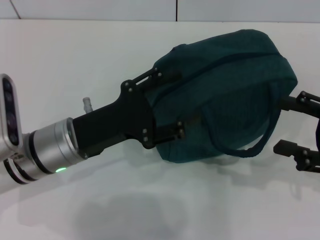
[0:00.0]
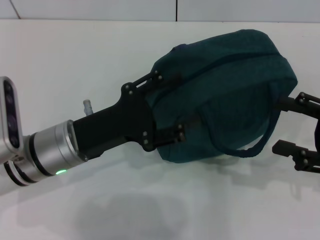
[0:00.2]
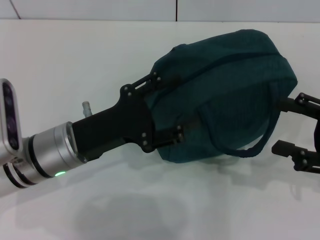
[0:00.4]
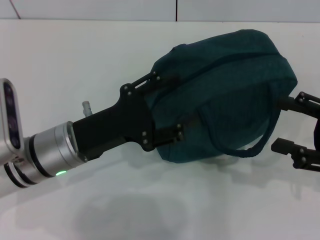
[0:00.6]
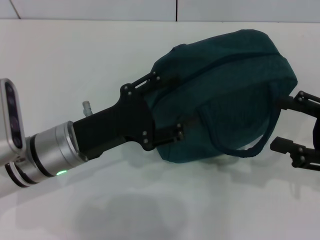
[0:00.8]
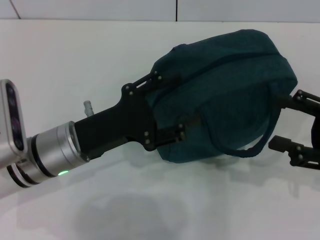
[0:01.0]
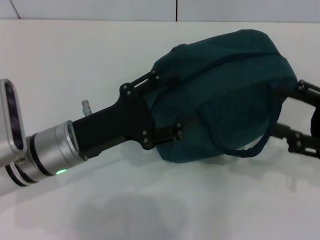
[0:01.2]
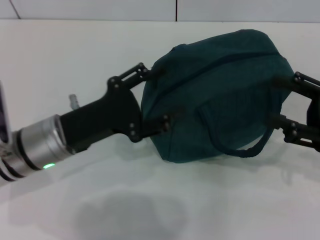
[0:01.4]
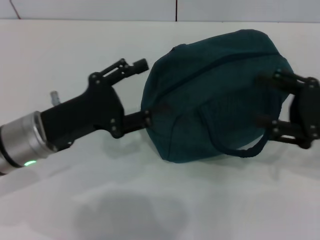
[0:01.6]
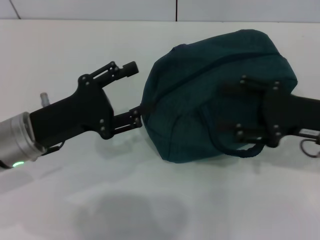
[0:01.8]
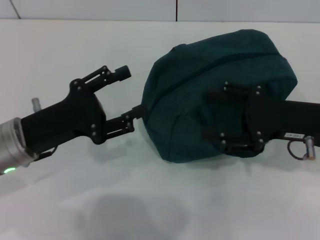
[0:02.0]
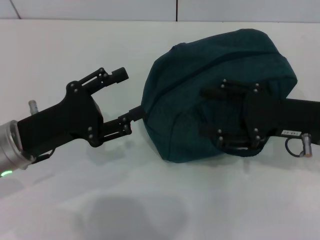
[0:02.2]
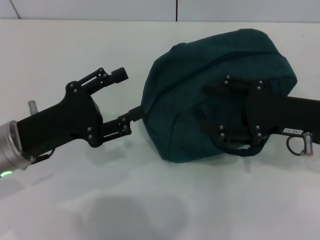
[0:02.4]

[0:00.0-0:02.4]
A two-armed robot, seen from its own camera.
0:00.0 to 0:01.2: The two grippers keep their place.
0:01.2 to 0:02.4: The grippers both shift to the left by about 5 cm.

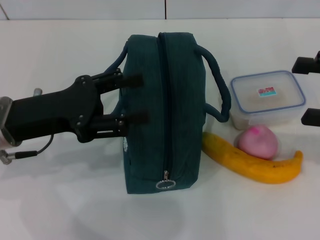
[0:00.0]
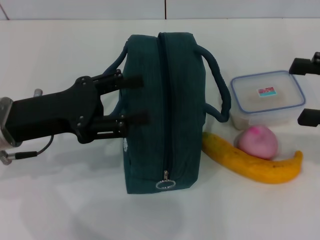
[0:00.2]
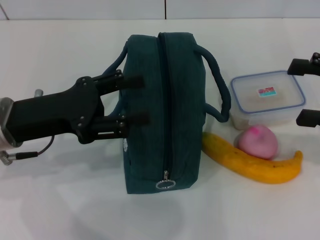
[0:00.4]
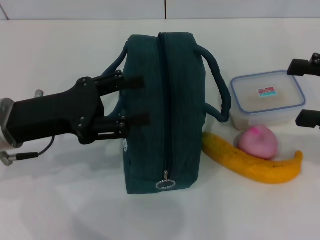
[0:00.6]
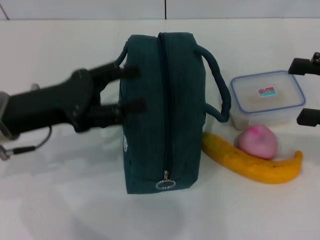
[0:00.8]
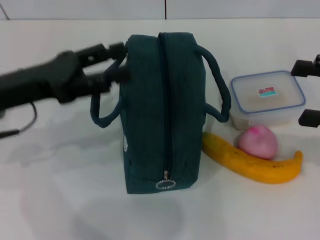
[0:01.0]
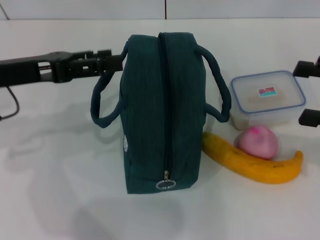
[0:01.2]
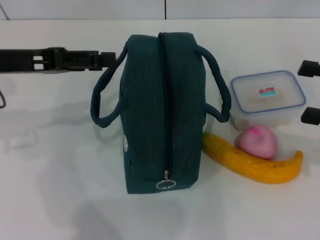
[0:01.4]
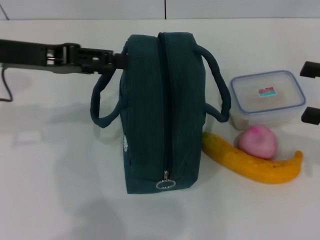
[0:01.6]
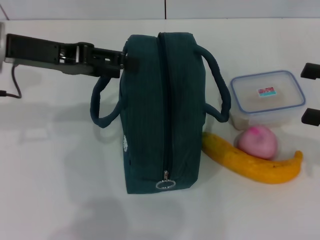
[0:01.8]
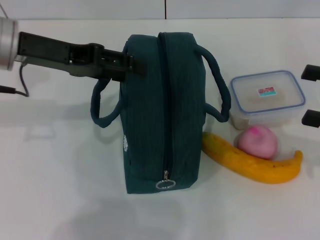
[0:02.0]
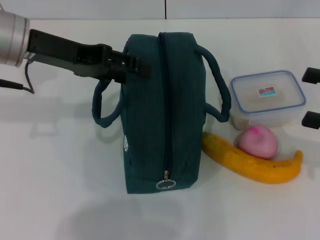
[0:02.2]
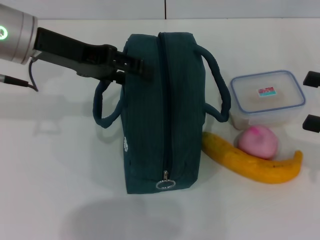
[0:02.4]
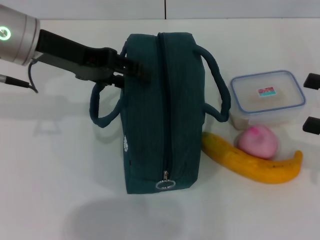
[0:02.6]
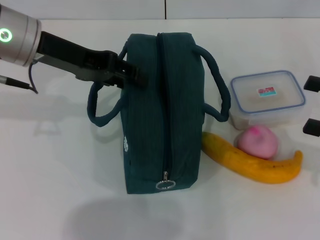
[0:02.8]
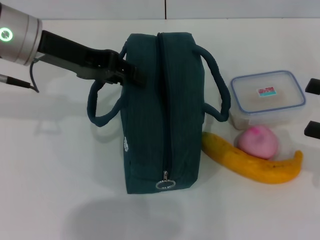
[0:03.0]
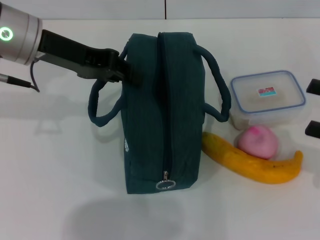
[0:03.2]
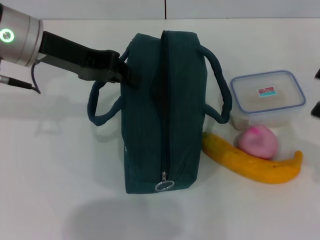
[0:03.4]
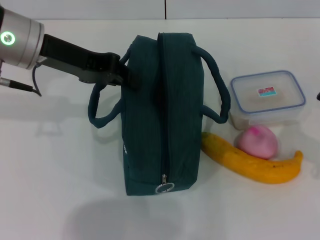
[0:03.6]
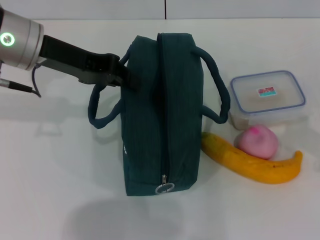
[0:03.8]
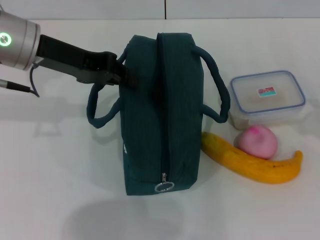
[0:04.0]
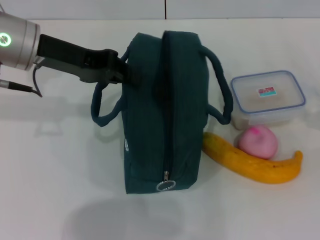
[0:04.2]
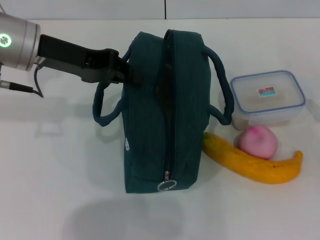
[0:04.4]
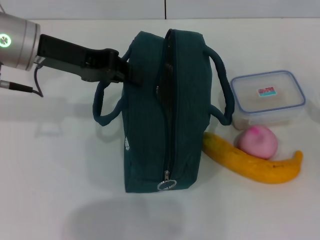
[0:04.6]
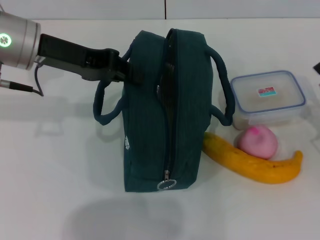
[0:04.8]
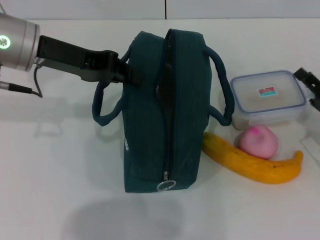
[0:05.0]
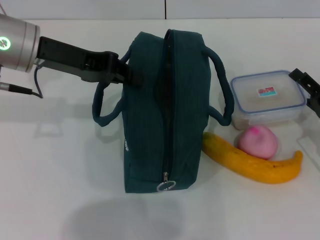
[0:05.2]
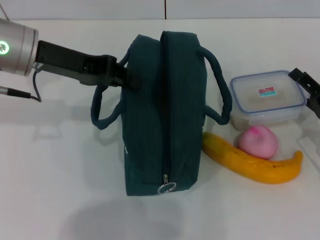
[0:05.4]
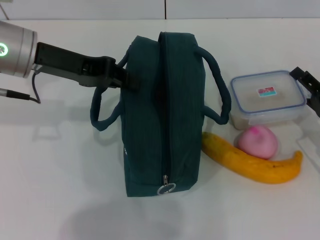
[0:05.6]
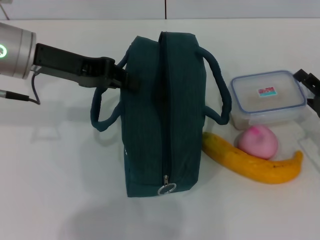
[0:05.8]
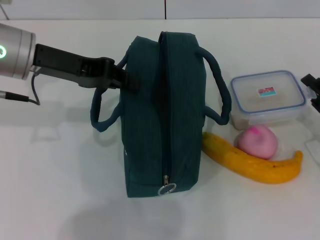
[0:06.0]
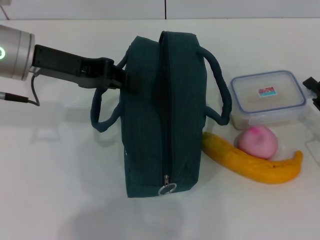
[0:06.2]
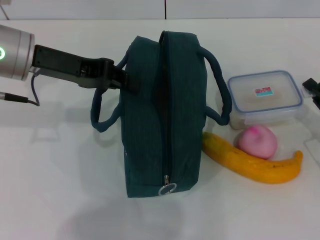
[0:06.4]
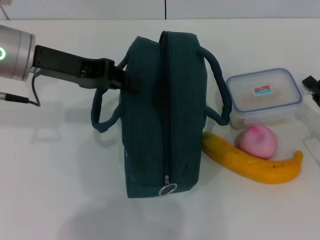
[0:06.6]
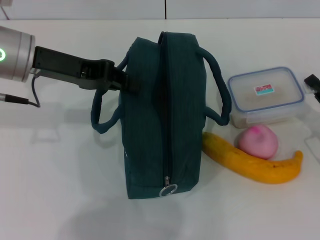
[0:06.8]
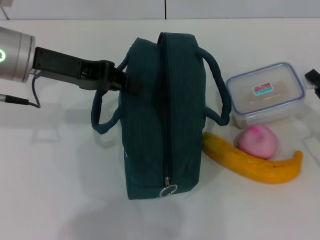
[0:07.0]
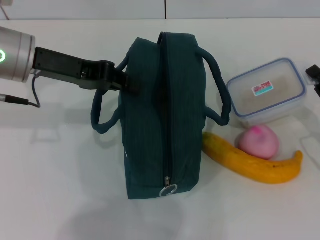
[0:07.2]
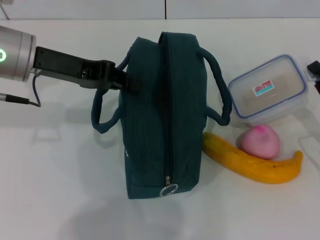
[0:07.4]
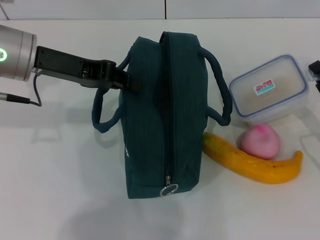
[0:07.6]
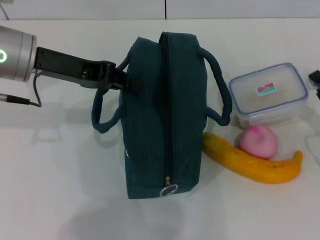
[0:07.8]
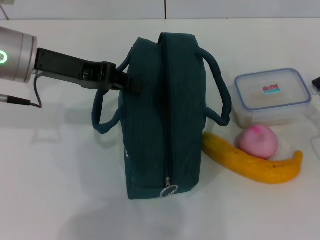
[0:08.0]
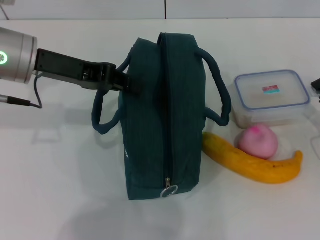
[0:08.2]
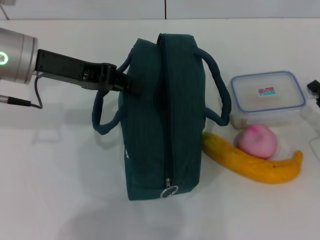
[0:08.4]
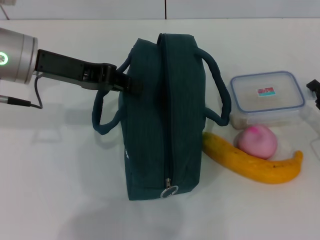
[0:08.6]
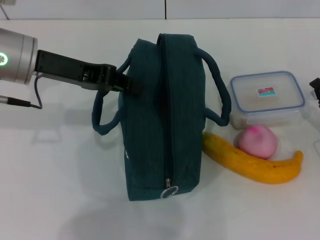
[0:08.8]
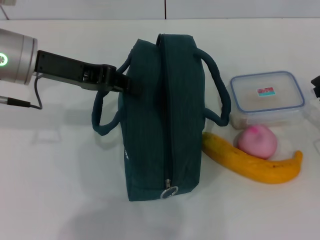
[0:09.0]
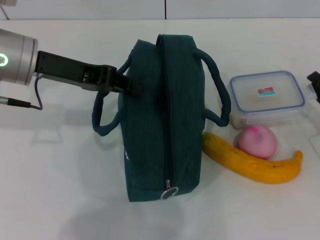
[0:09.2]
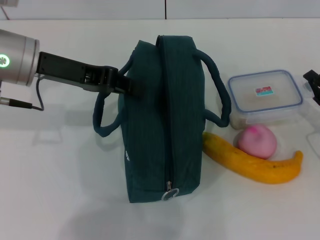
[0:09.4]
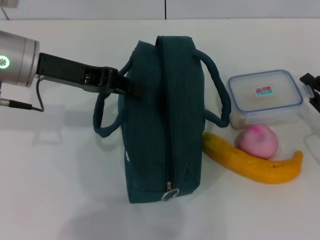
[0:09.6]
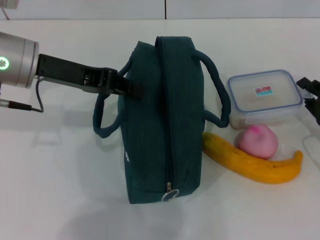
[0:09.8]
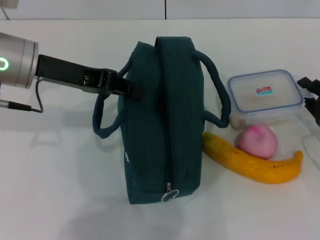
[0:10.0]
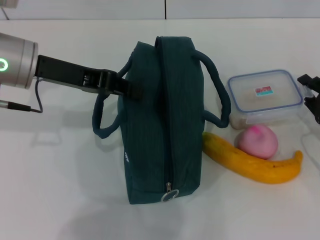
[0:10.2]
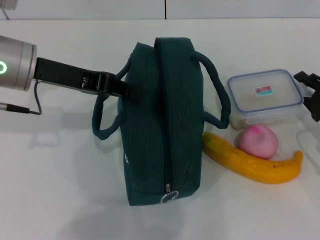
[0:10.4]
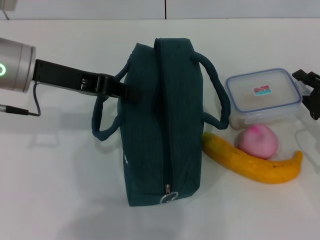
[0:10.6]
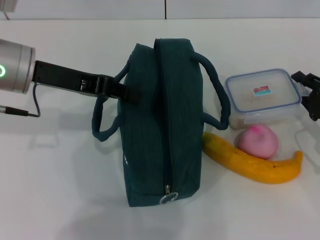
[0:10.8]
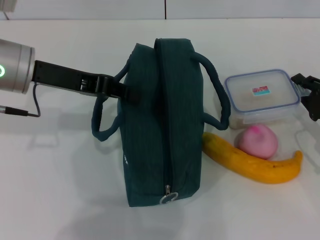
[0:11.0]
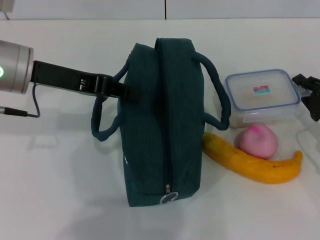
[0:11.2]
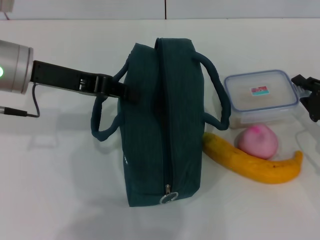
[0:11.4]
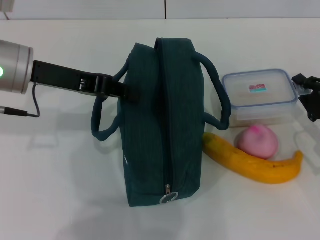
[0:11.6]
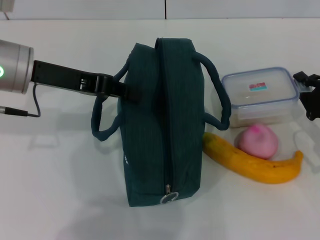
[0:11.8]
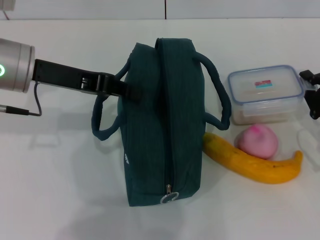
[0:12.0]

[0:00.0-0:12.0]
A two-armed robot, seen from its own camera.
Step, 0:00.0 to 0:03.8: Hold the lunch bag with your left hand.
Step, 0:04.0 to 0:11.6: Pick up the lunch box with your right hand.
0:00.0 to 0:01.6: The left gripper heads upward and forward, covering roughly 10 cm.
0:01.6 to 0:03.0: The left gripper changes place by roughly 5 cm, and closes.
0:03.0 to 0:04.4: The right gripper moves downward, about 10 cm. The left gripper closes.
0:06.0 to 0:07.6: The right gripper closes its fingers.
0:07.6 to 0:10.4: There are only small adjustments of the grippers.
0:10.4 to 0:12.0: The grippers stay close to where they were, moving slightly.

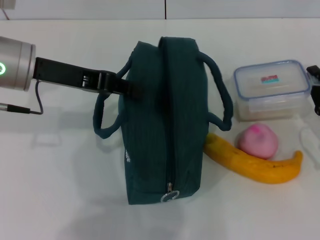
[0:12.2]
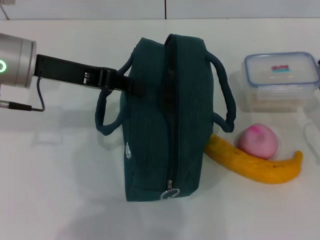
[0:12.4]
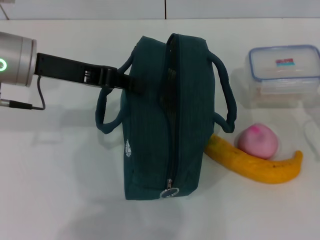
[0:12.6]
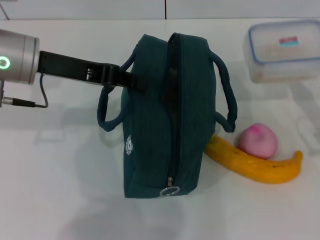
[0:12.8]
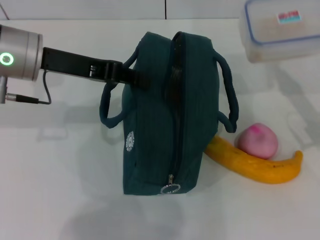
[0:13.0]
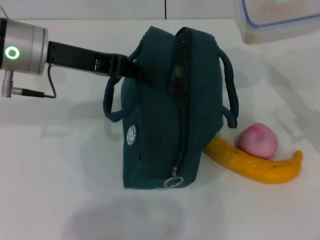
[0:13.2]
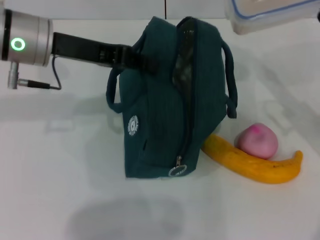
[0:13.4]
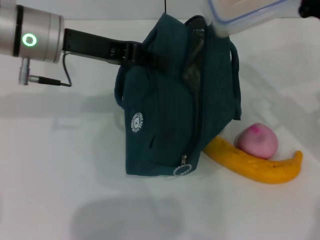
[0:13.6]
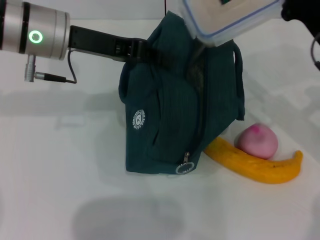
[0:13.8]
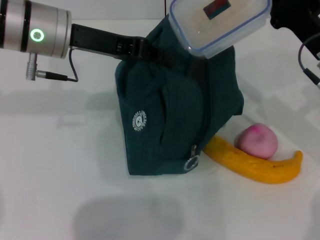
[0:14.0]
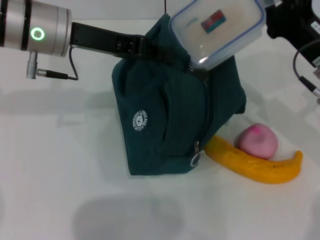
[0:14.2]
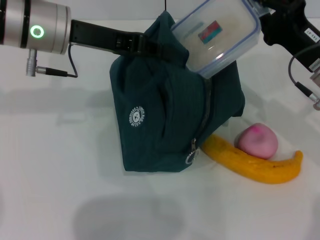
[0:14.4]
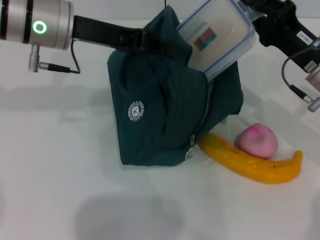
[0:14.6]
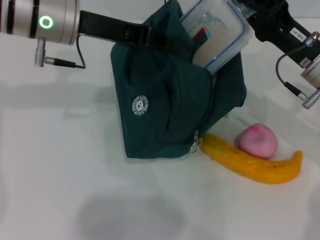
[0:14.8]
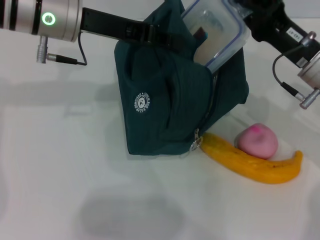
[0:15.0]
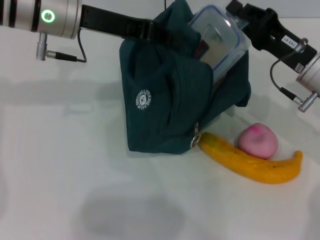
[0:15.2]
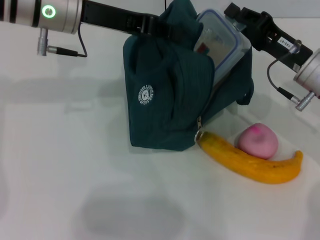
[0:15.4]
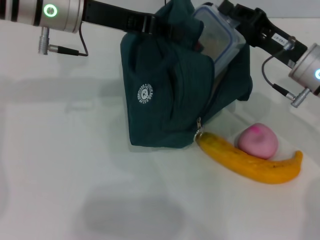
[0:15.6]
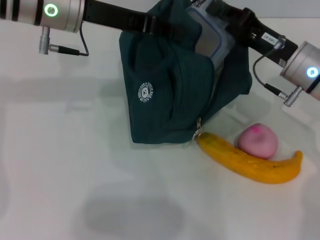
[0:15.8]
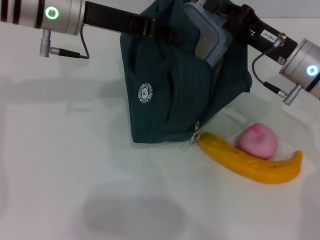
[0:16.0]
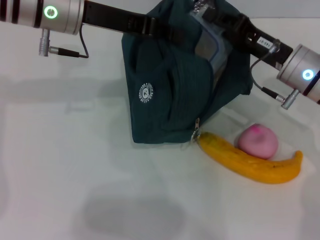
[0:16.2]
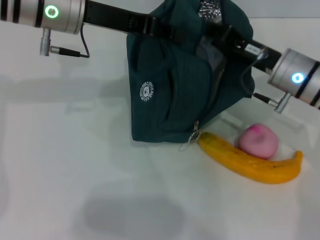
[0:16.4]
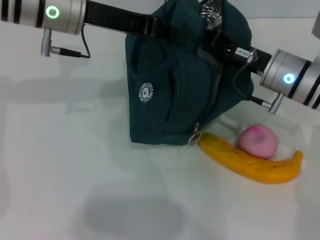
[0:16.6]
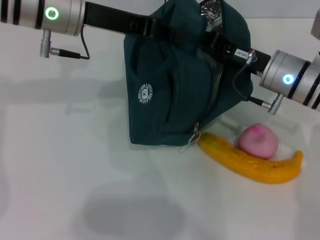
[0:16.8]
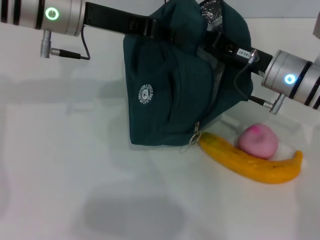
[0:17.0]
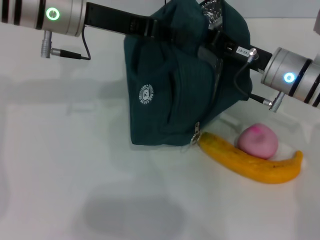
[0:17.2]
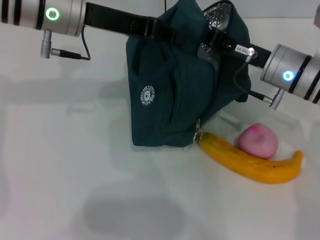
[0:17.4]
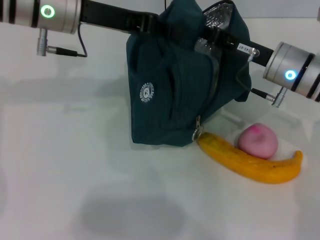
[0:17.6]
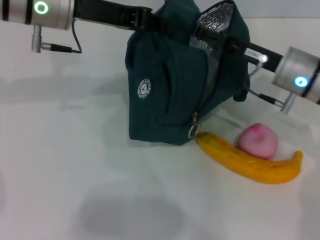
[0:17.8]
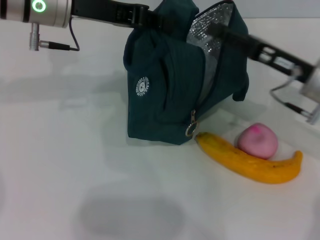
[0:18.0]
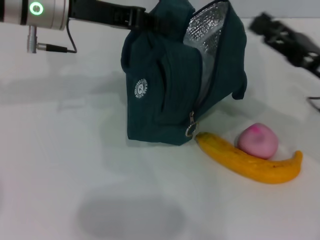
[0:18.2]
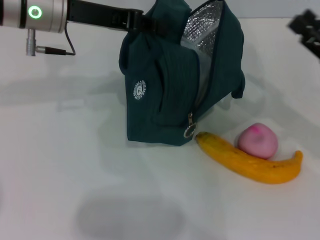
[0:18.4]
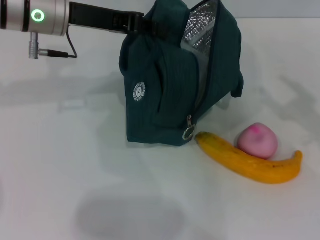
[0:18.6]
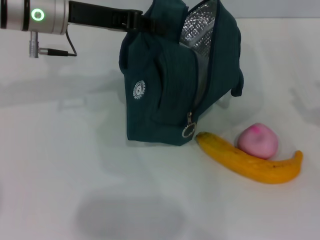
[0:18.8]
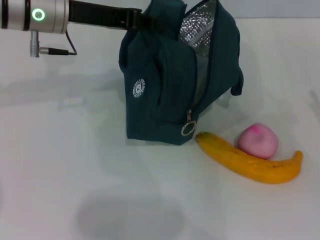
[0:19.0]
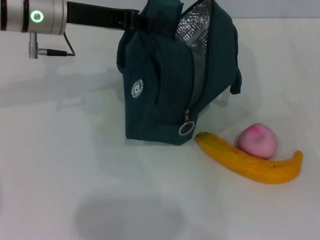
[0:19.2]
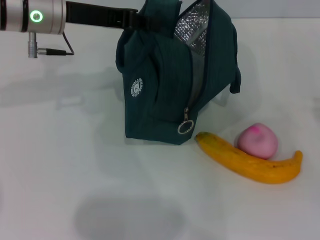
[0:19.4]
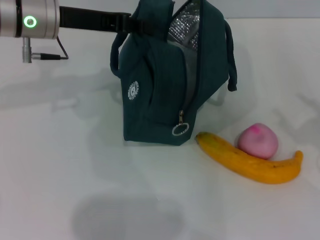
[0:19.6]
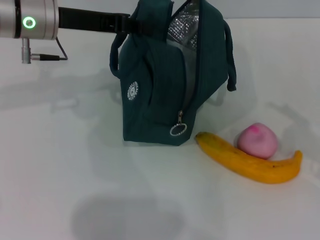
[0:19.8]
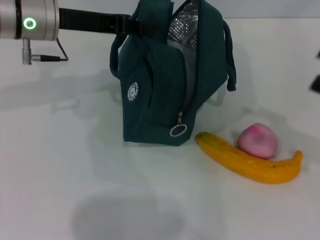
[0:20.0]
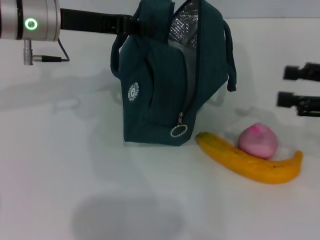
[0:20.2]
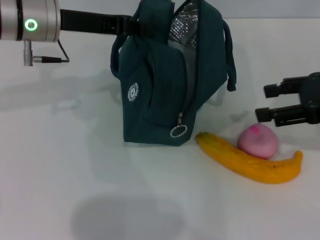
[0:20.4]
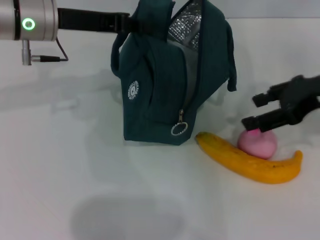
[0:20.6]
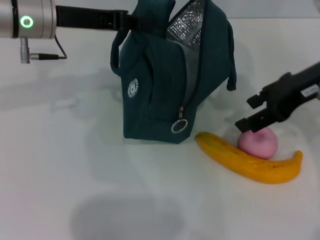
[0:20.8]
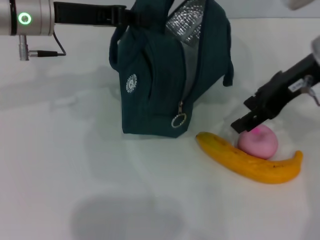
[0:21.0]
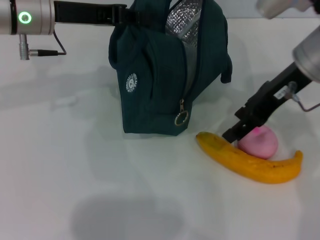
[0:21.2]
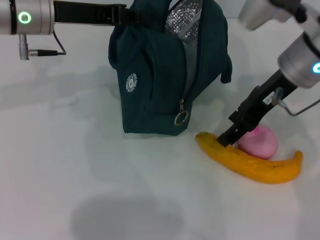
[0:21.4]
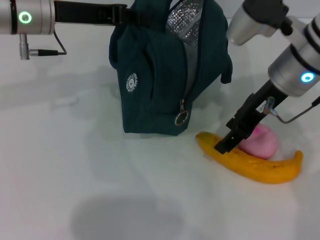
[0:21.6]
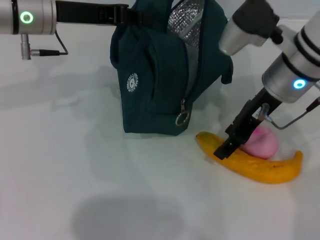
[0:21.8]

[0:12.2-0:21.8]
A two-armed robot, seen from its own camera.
Step, 0:12.2 to 0:17.4: Place the lunch box into the lunch bag with your right hand.
0:12.2 to 0:13.8: The right gripper travels upward, to the left and forward by roughly 15 cm. The left gripper moves roughly 5 cm.
0:15.4 to 0:17.0: The grippers move only a little.
0:17.0 to 0:18.6: The right gripper shifts some 20 cm to the right and backward, and opens its fingers.
0:18.6 to 0:20.2: The right gripper heads upward, covering roughly 10 cm.
0:20.2 to 0:21.8: The right gripper shifts approximately 20 cm to the left and forward.
